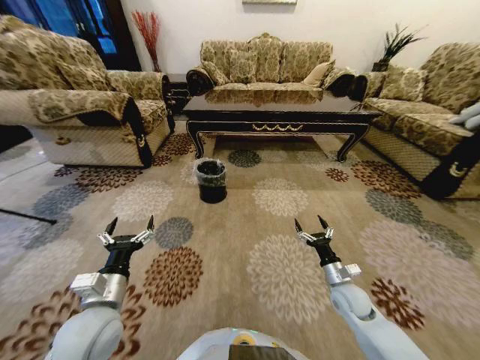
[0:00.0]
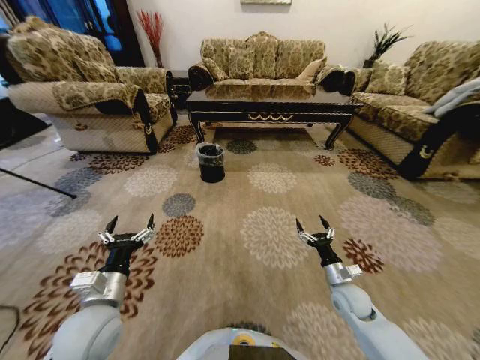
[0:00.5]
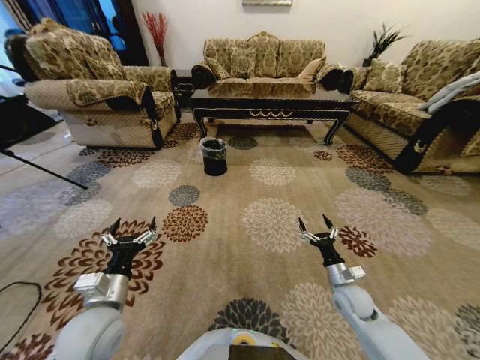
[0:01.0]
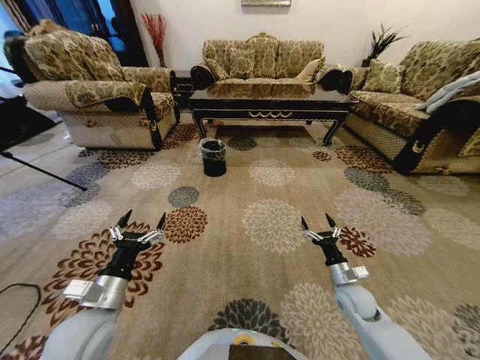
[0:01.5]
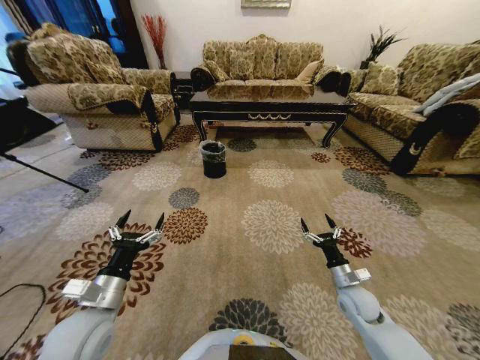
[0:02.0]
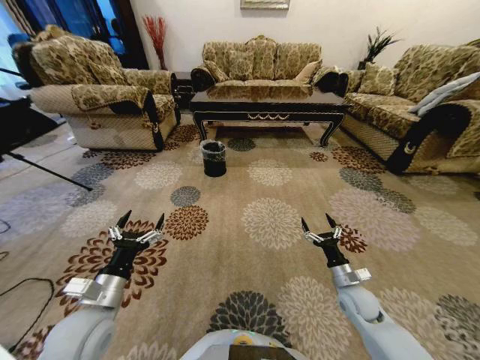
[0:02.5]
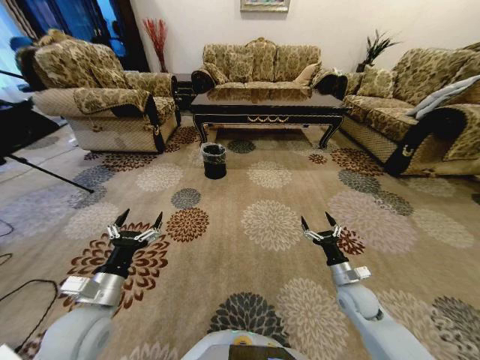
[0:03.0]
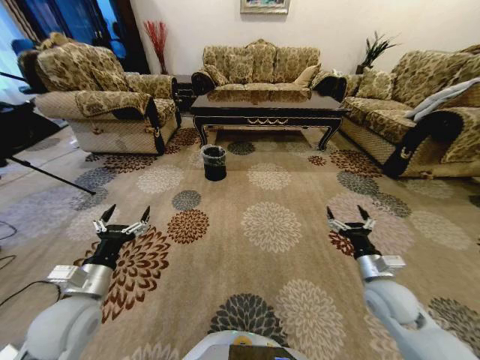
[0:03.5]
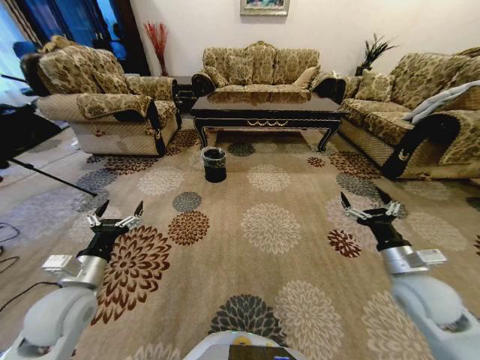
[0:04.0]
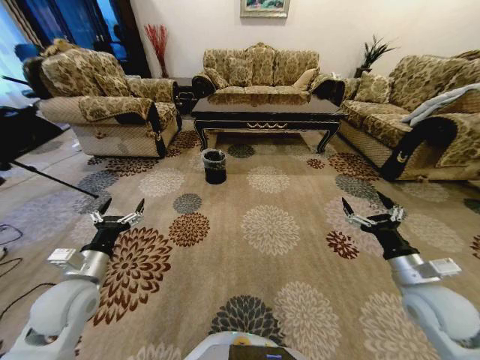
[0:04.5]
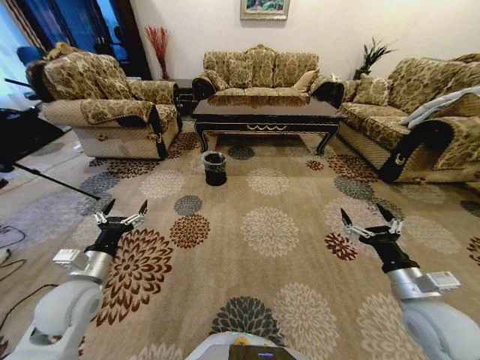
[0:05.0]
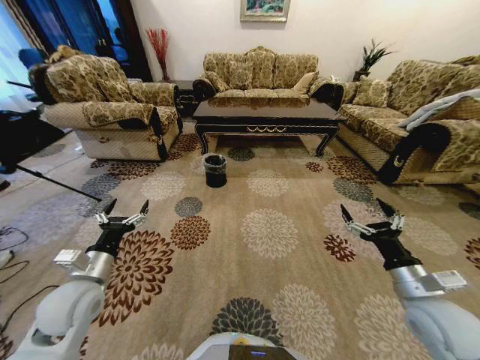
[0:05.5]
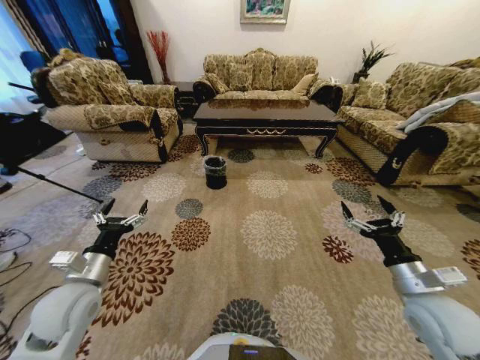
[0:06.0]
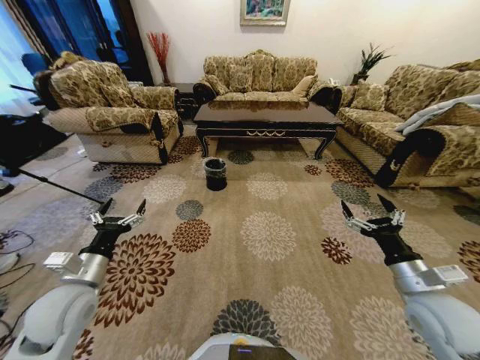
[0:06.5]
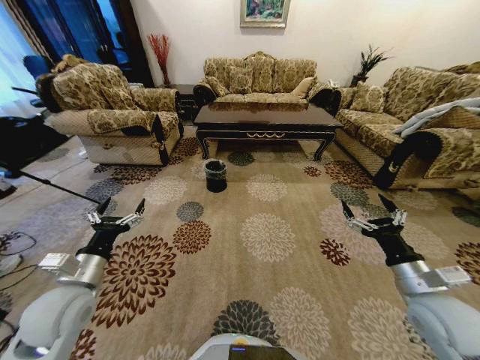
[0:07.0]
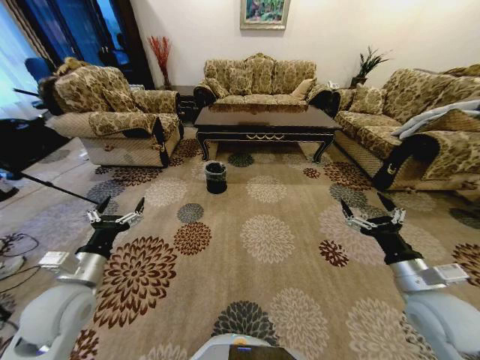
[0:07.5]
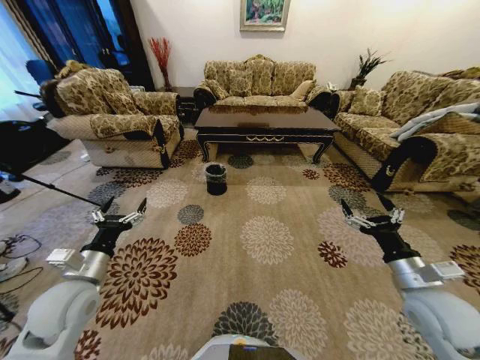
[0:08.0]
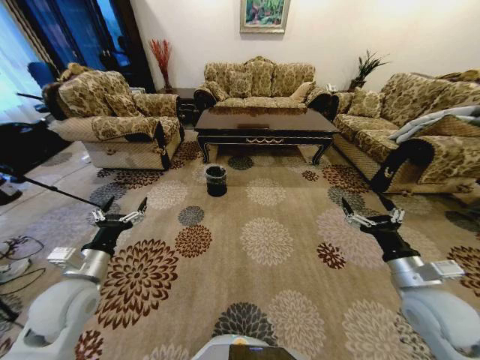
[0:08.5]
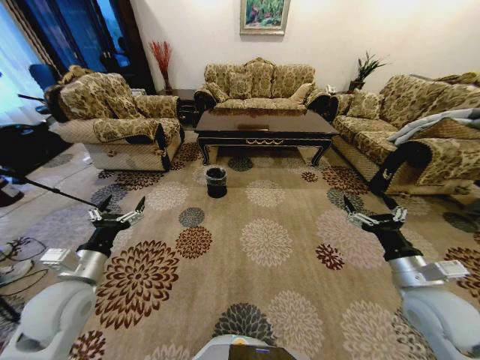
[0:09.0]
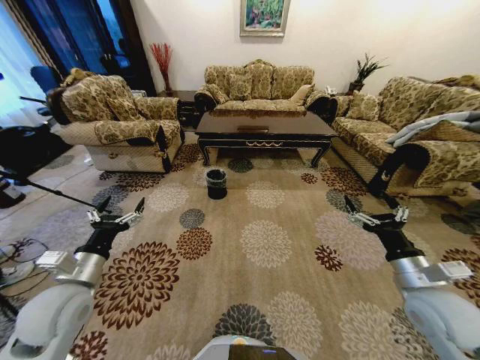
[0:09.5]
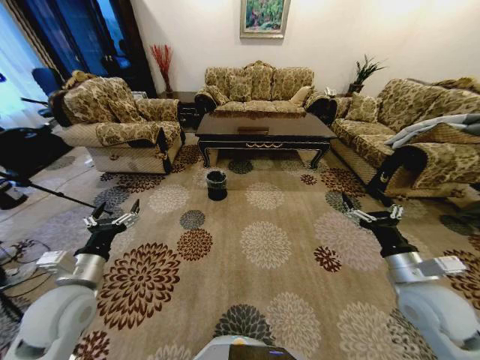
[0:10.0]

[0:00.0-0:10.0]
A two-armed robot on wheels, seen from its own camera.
Task of the whole recording: Move to the front of the table and pick up the trash from the floor, then place it into the trash bin.
0:02.0 to 0:04.0: The left gripper shifts roughly 5 cm to the left. The right gripper is displaced upward by some 15 cm.

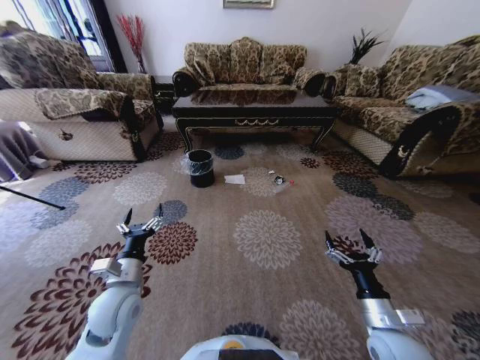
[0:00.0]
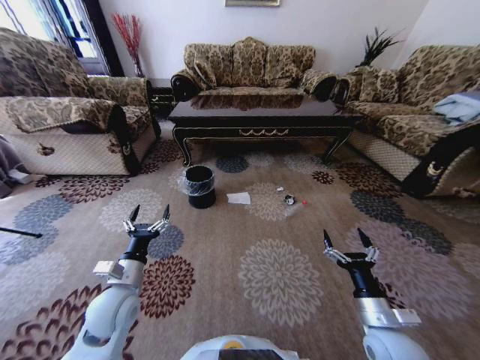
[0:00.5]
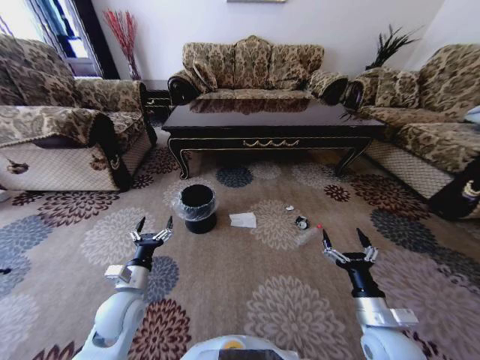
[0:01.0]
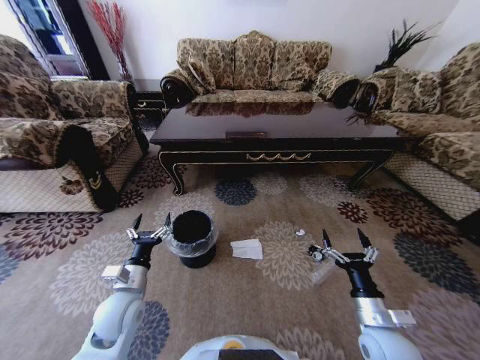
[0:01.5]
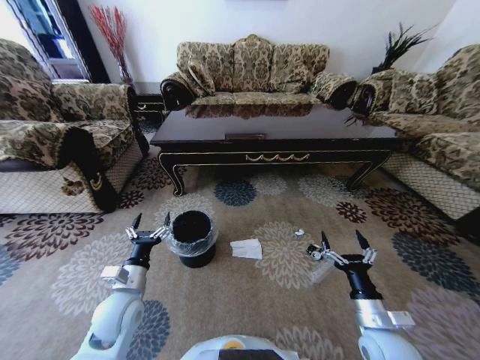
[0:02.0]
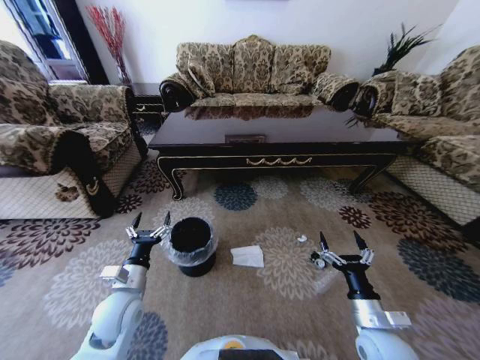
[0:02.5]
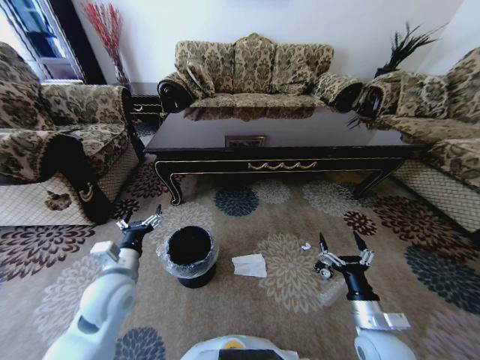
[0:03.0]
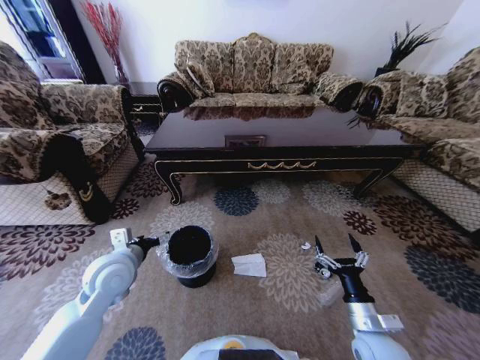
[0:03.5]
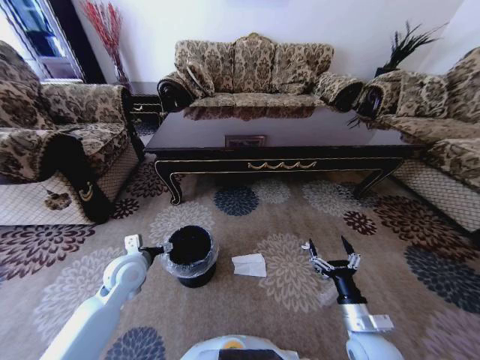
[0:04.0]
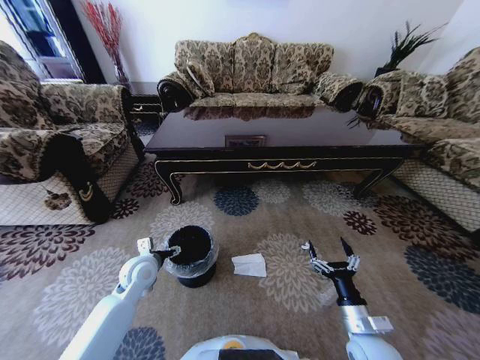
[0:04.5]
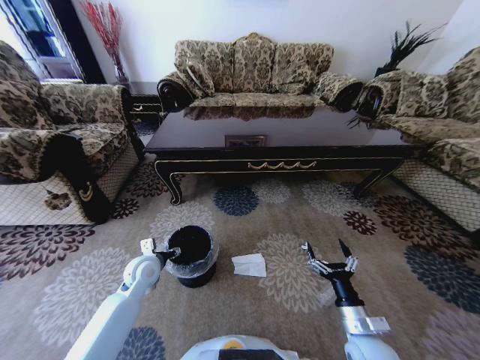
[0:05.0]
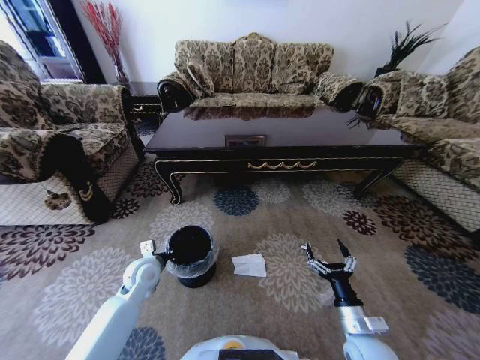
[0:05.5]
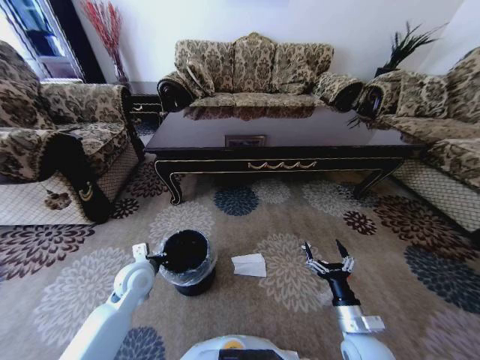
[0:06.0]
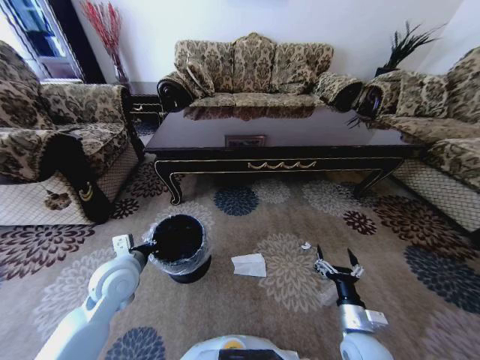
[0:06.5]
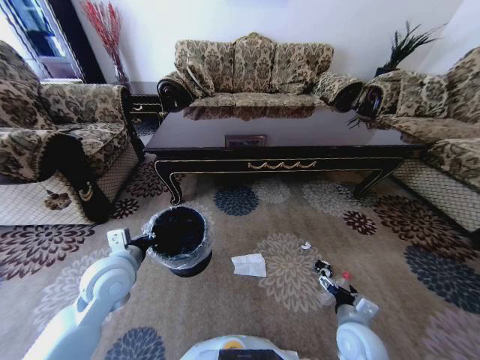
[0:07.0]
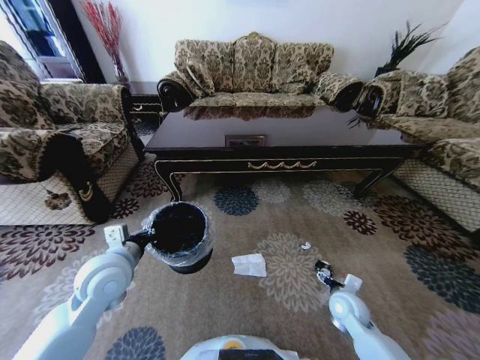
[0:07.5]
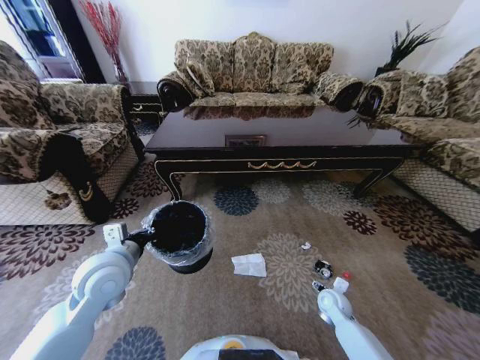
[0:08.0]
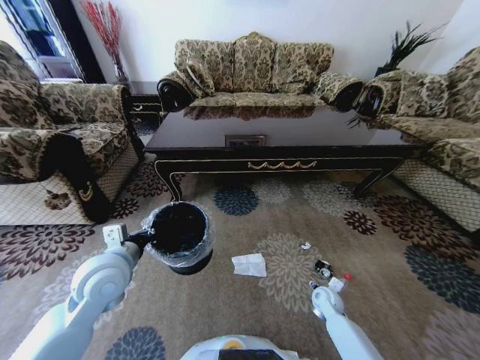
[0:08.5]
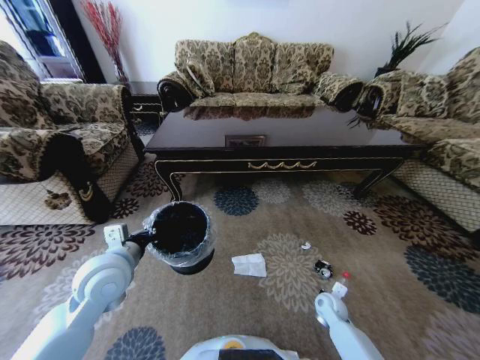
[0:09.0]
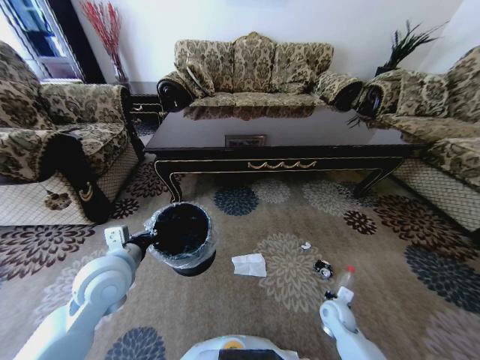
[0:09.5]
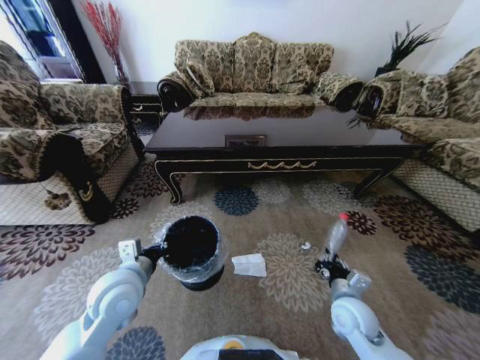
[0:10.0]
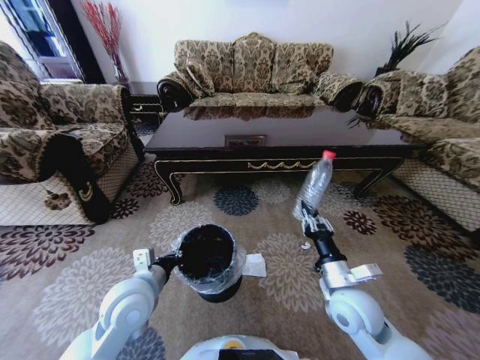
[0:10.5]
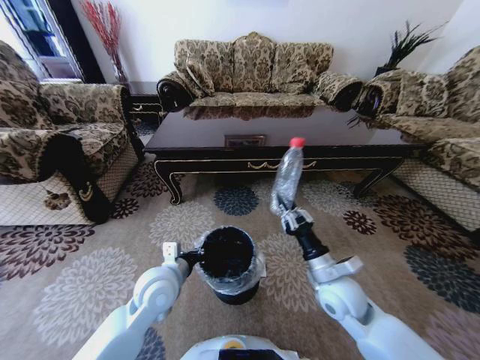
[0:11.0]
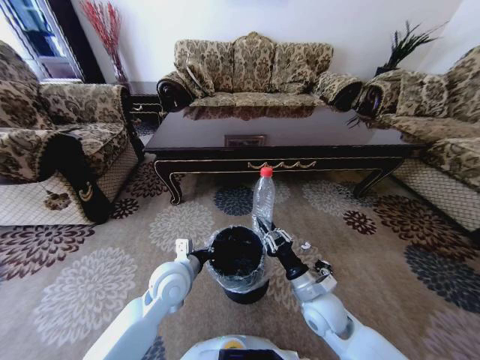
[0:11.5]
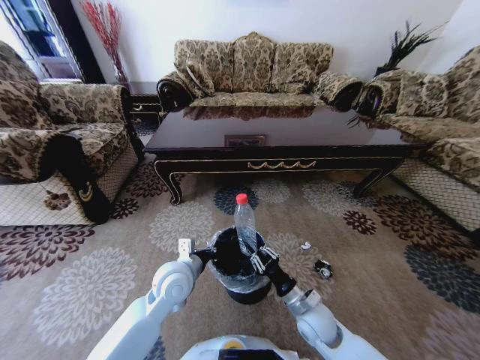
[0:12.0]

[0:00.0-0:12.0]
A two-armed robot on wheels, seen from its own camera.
Task of the whole recording: Move to the front of the table and pick up the trash from the floor, then place it into the trash bin.
0:02.0 to 0:04.0: The left gripper goes approximately 10 cm forward.
0:04.0 to 0:06.0: The left gripper closes up.
0:06.0 to 0:08.0: The left gripper moves upward, about 15 cm. The right gripper travels forward and downward by about 15 cm.
0:08.0 to 0:10.0: The right gripper is displaced upward and backward by approximately 15 cm, and closes.
0:10.0 to 0:12.0: The right gripper moves to the left, some 10 cm, and moves about 10 cm upward and comes back, while the left gripper goes approximately 10 cm to the right.

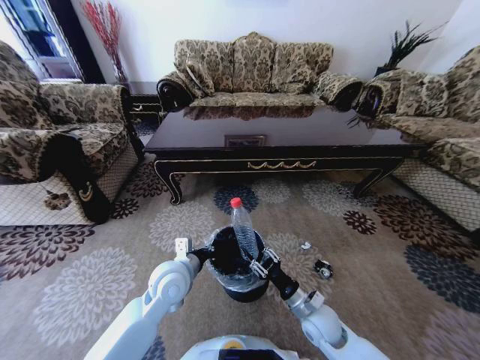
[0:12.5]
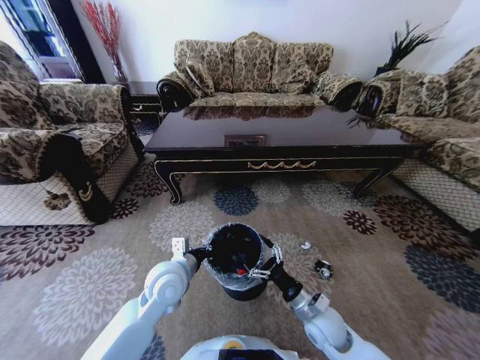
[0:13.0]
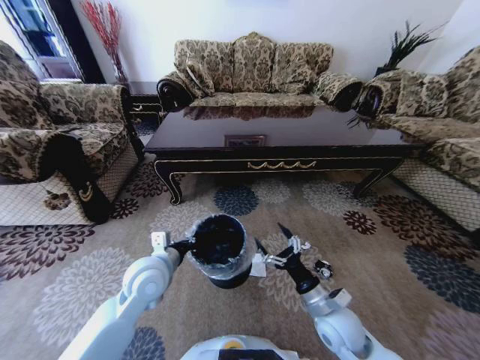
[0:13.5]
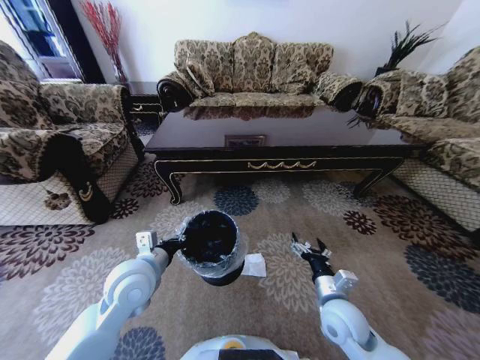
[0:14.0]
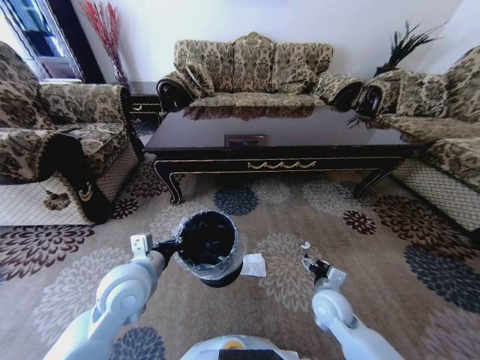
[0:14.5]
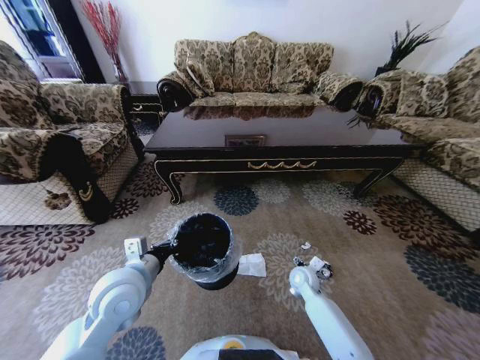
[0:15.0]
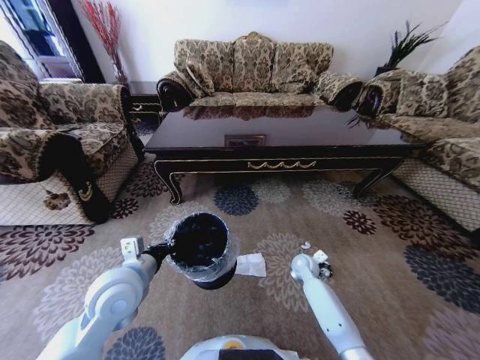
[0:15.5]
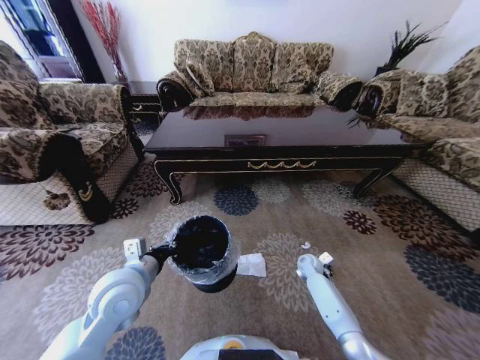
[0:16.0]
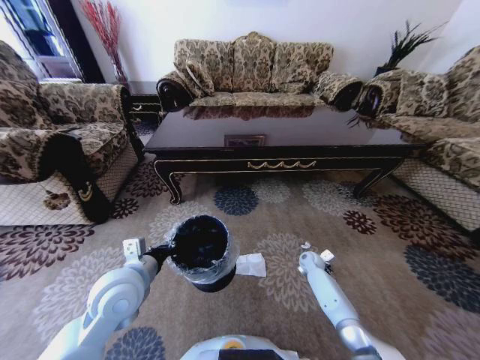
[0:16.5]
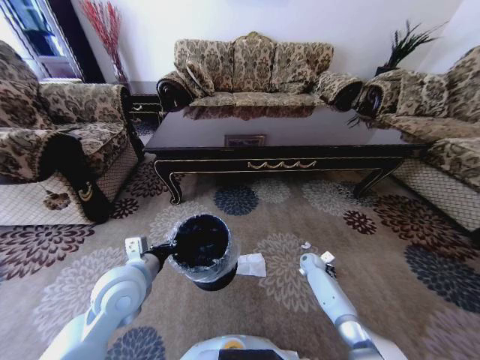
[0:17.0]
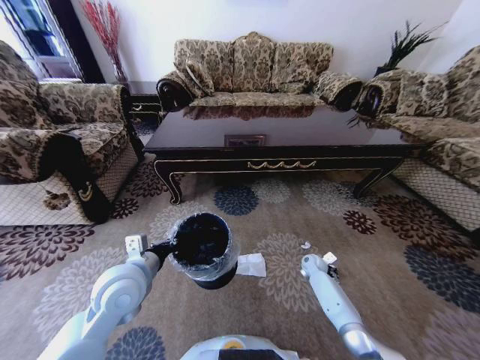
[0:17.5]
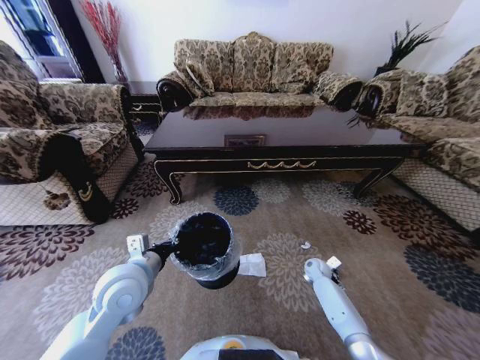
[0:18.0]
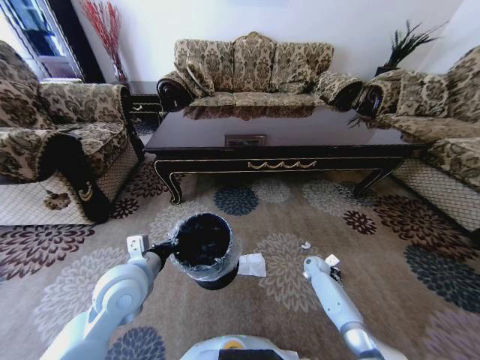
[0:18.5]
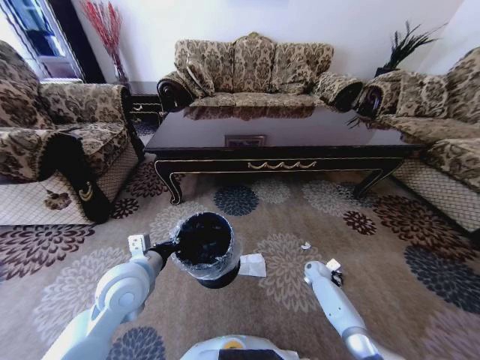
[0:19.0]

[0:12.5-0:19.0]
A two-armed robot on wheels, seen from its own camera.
Task of the whole recording: Move to the front of the table and pick up the trash from the floor, then place it into the trash bin.
0:12.5 to 0:14.5: The left gripper heads to the left and upward, covering roughly 10 cm. The right gripper changes place by roughly 5 cm, and opens its fingers.
0:14.5 to 0:17.0: The right gripper moves forward, downward and to the right, about 25 cm.
0:17.0 to 0:19.0: The right gripper closes up.
